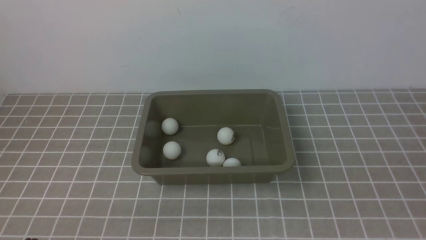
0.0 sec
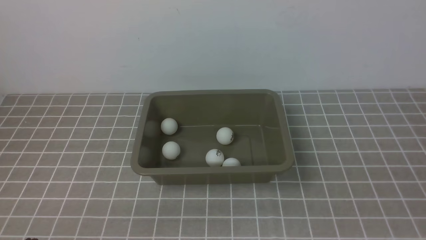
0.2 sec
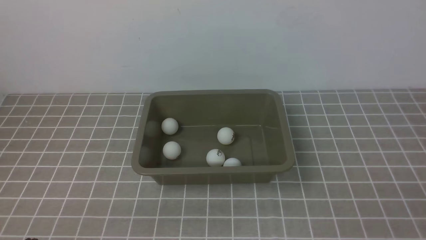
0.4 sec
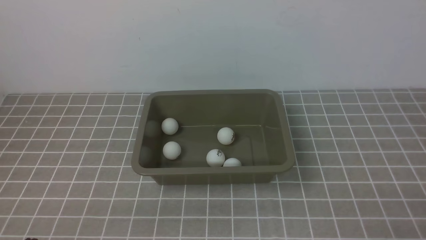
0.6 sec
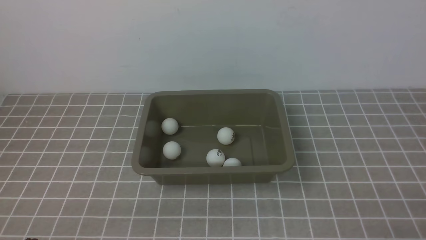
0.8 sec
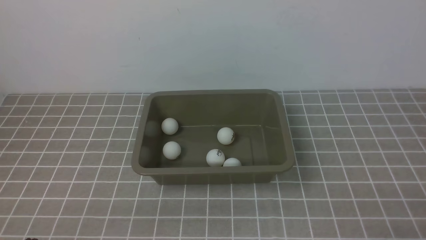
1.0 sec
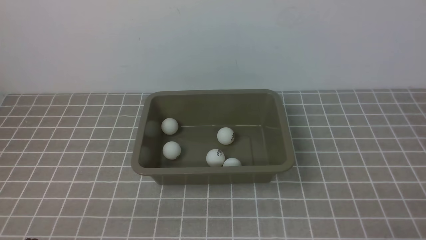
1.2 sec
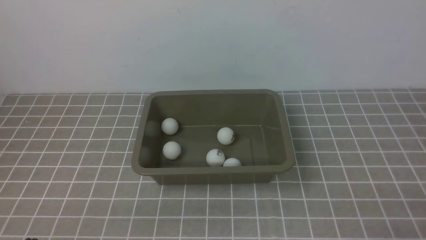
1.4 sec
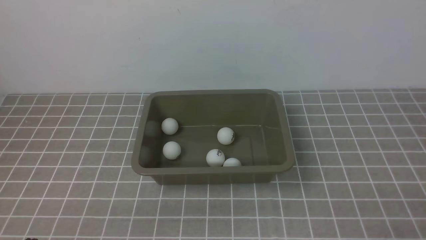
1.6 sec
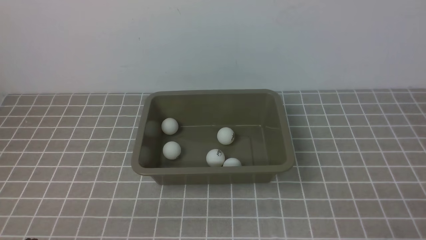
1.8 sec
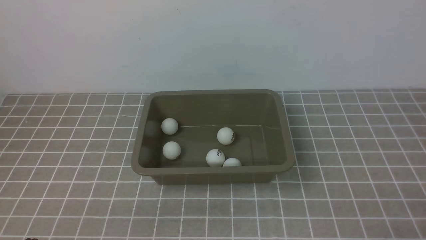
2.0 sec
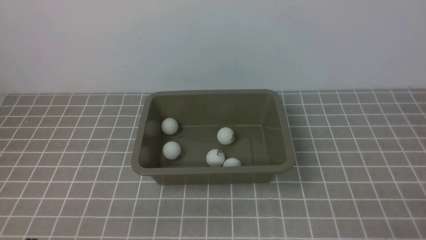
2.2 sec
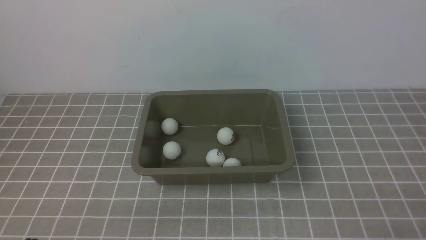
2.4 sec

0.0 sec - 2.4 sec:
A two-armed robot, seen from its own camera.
1.2 sec - 2.4 sec: Both grippers stay put.

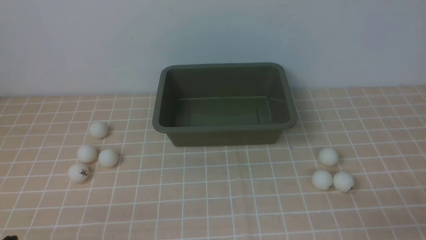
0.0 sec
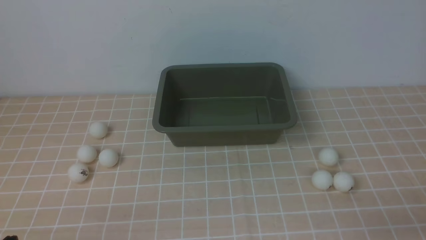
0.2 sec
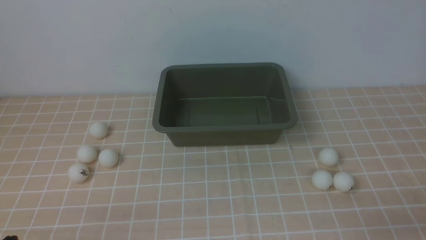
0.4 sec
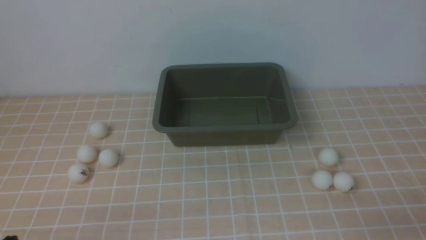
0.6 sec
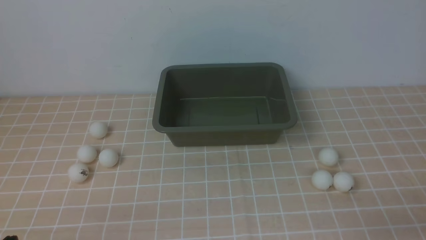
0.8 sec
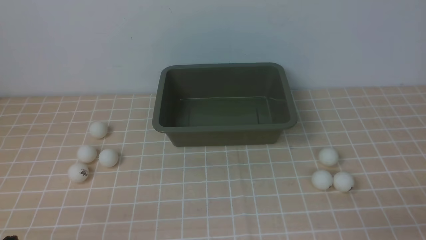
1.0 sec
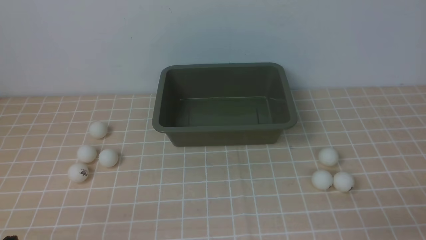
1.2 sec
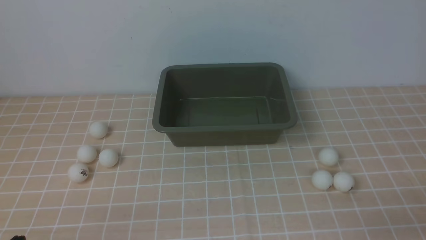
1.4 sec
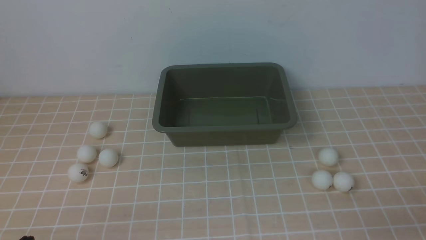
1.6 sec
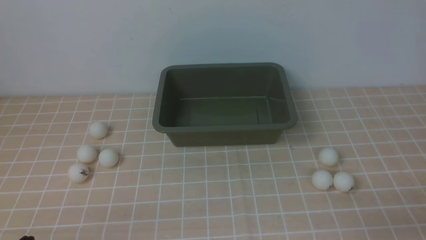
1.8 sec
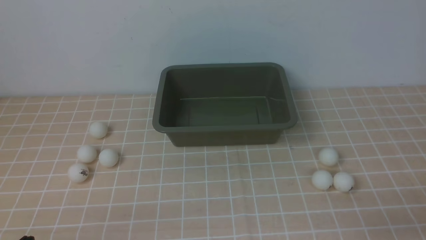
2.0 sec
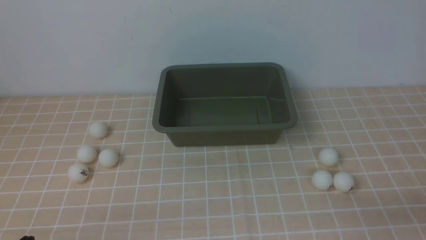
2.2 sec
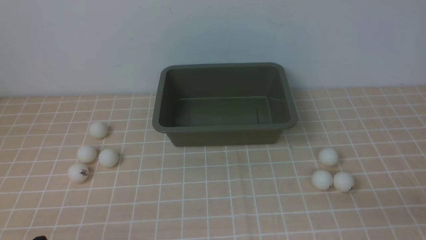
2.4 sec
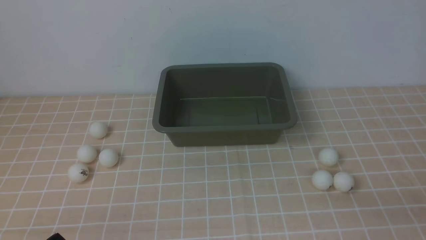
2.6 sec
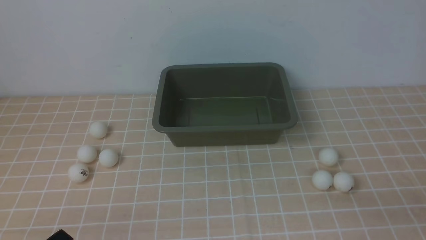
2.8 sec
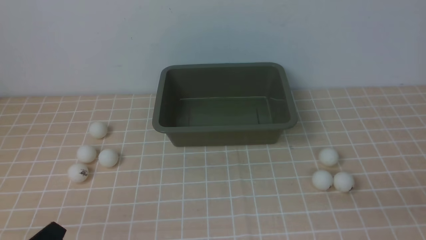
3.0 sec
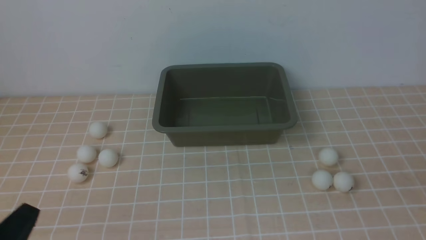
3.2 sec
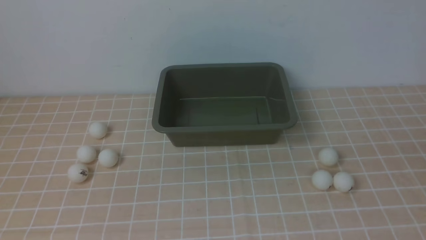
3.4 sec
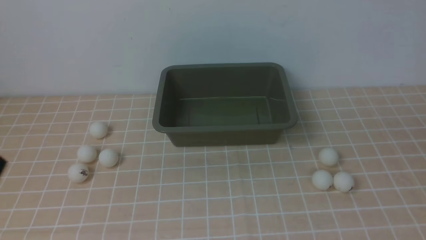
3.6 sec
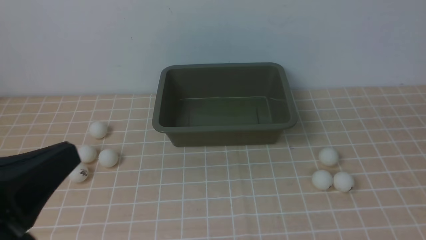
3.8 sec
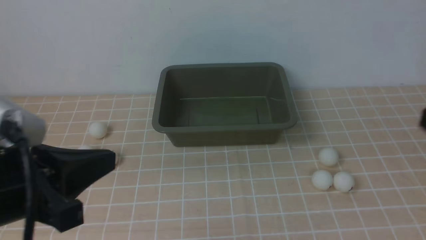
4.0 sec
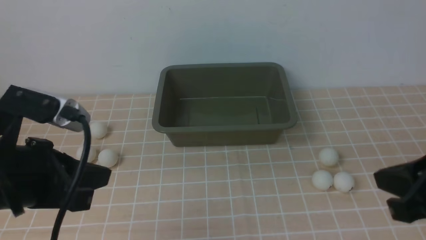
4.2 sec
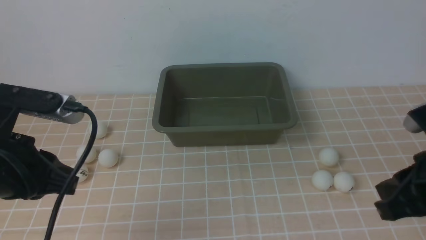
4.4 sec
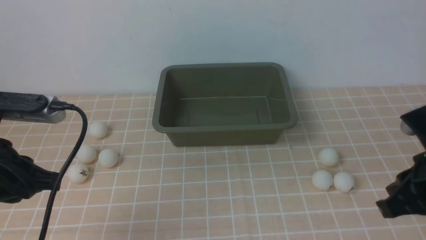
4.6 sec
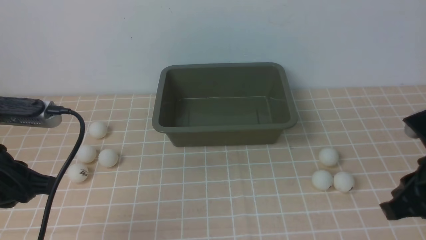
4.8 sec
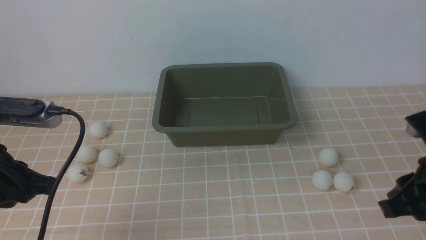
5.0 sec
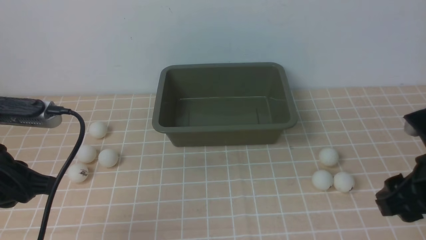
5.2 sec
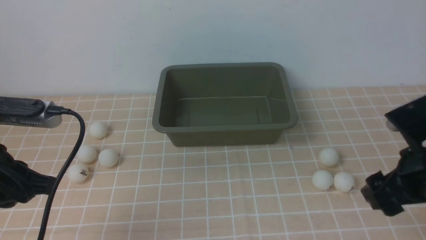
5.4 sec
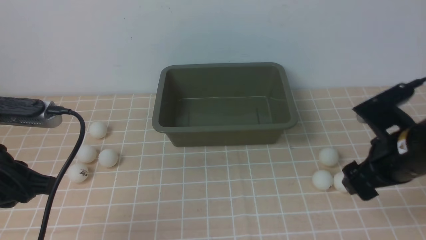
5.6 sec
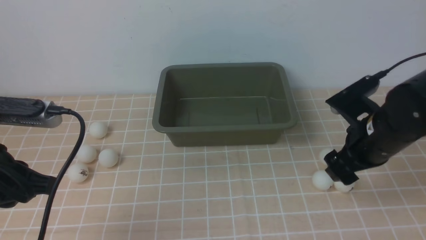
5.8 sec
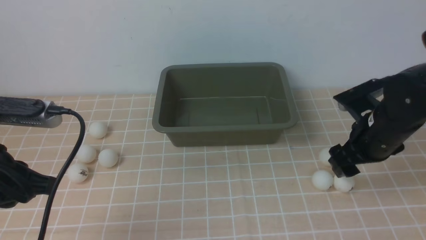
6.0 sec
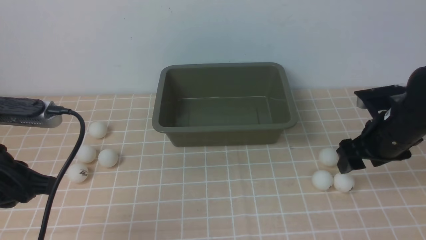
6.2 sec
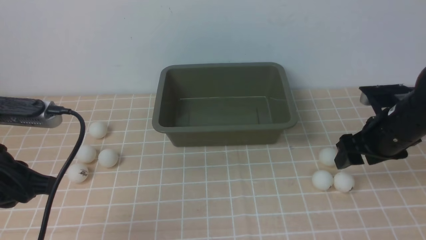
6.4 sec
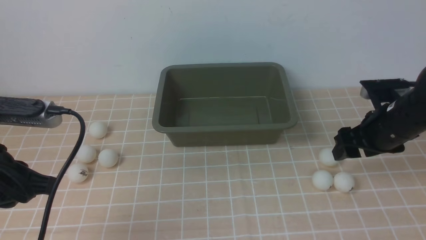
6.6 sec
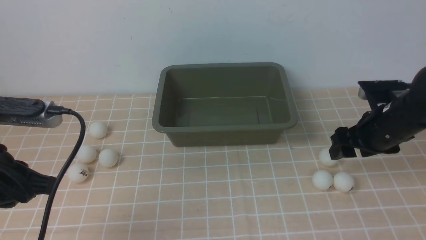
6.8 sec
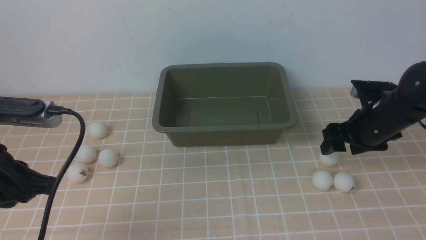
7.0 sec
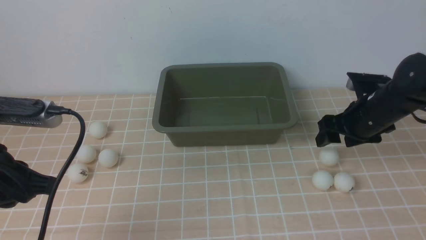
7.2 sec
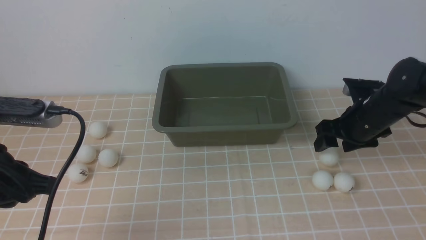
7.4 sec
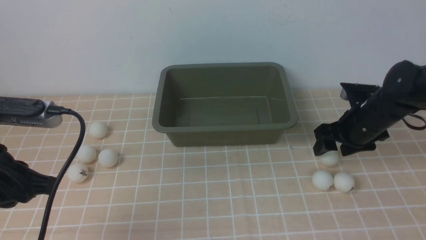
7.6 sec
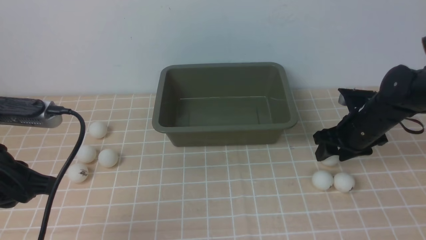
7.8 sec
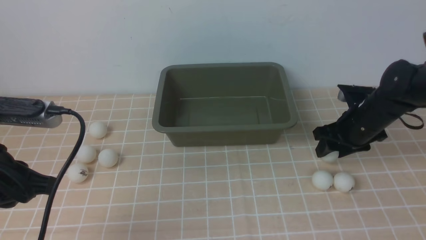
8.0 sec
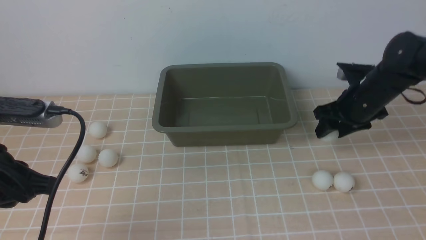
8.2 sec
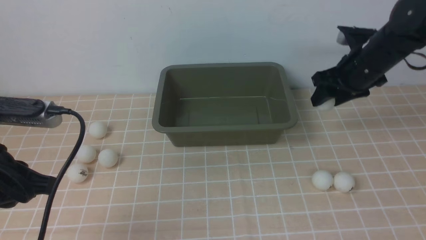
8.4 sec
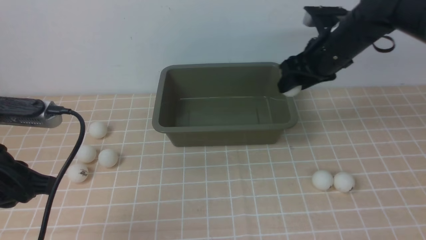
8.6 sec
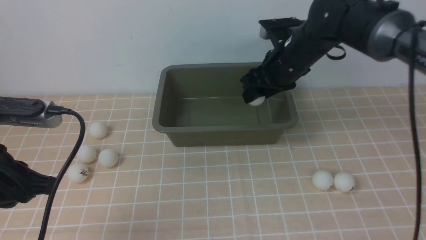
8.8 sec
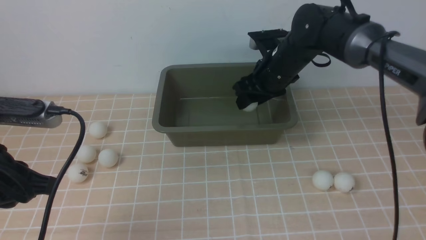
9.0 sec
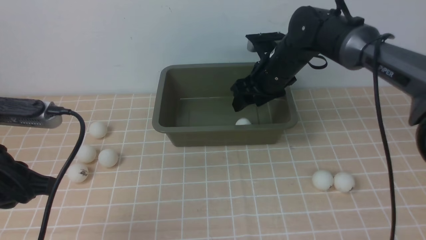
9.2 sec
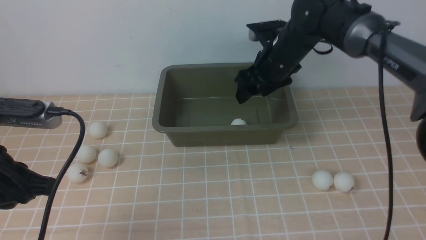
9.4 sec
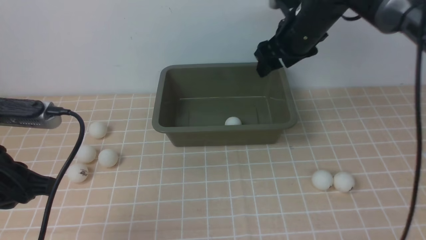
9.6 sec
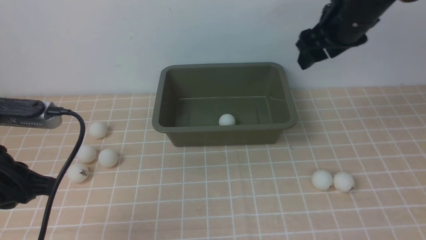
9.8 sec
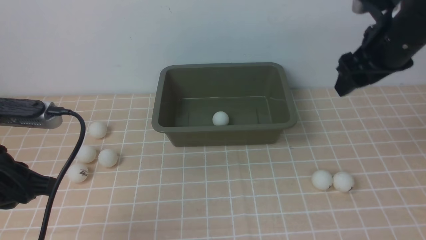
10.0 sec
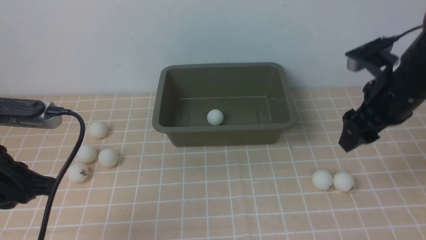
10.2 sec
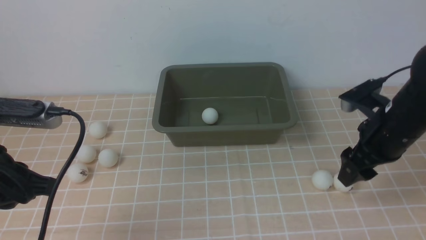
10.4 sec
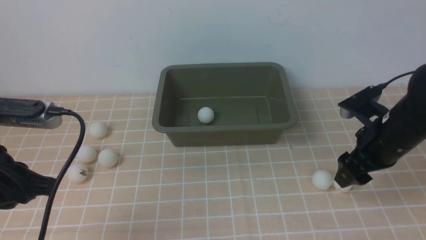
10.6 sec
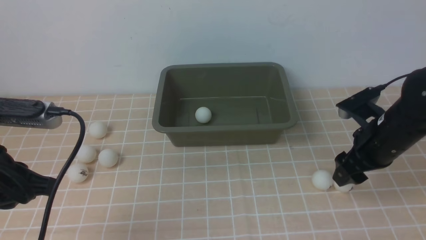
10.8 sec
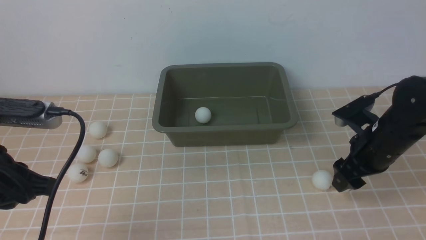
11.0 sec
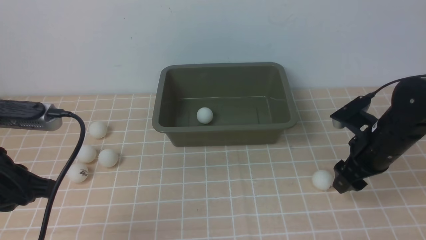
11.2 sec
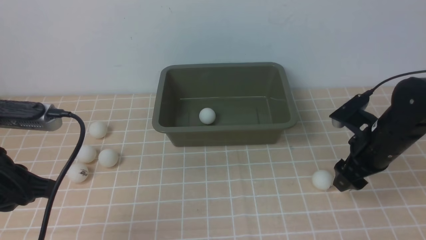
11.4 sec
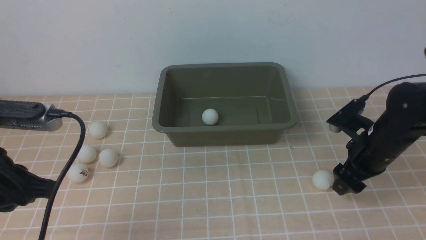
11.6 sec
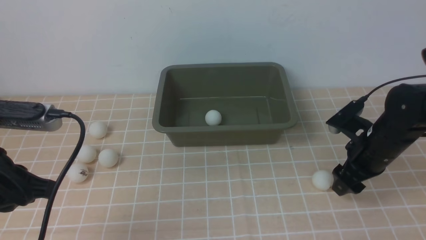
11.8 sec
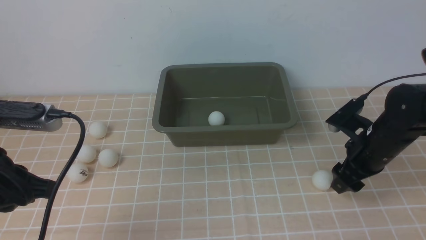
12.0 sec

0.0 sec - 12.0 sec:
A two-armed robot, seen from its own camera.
Step, 0.0 sec - 8.6 sec: use the right arm to clamp the table tennis ball closest to it.
Step, 8.8 sec - 9.4 sec: use the right arm to put the table tennis ball into the box.
3.0 sec - 4.4 sec: The left gripper is displaced forward and upward by some 15 cm. Meanwhile the right gripper heads forward, to the left and upward, covering about 15 cm.
4.4 sec - 6.0 sec: The right gripper shifts some 15 cm forward and downward, and opens.
6.0 sec - 7.6 sec: The right gripper travels forward and downward by roughly 10 cm.
7.6 sec - 9.0 sec: The right gripper heads to the left, upward and forward, covering about 15 cm.
9.0 sec - 10.4 sec: The right gripper is displaced to the right and backward by approximately 20 cm.
10.4 sec - 12.0 sec: The right gripper is displaced downward by approximately 10 cm.

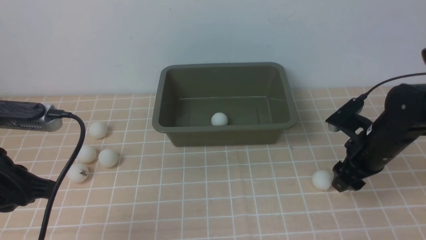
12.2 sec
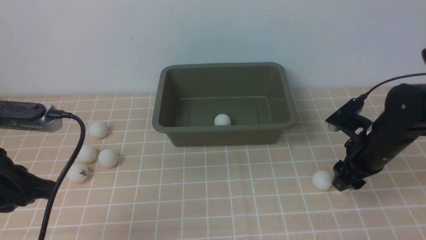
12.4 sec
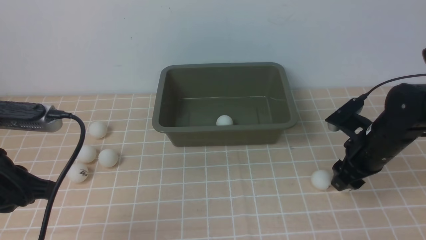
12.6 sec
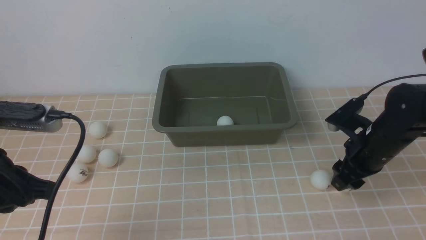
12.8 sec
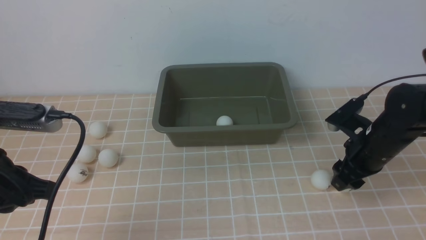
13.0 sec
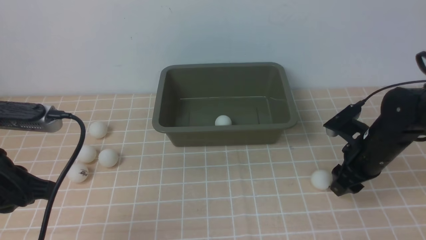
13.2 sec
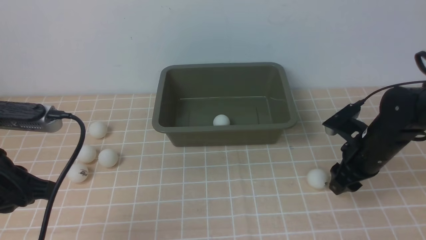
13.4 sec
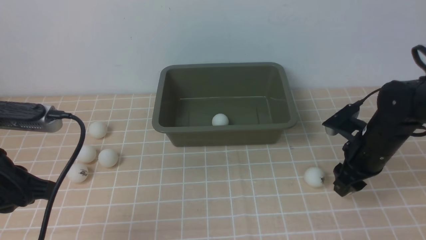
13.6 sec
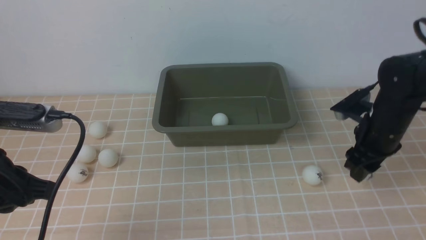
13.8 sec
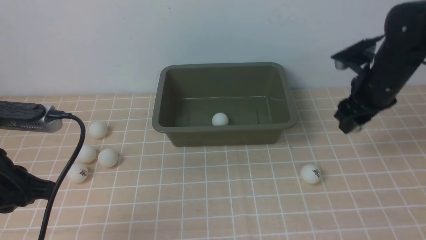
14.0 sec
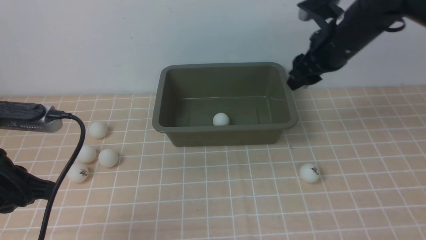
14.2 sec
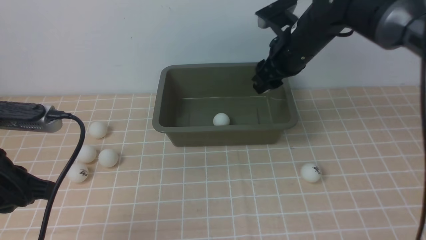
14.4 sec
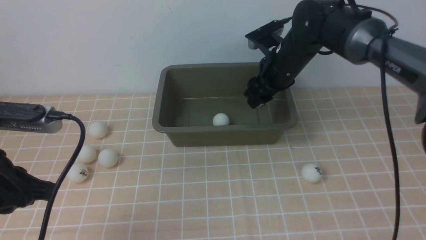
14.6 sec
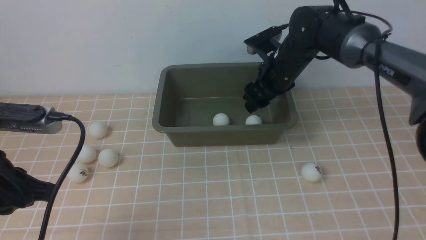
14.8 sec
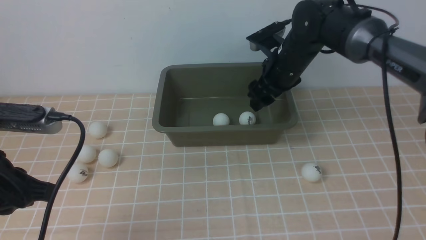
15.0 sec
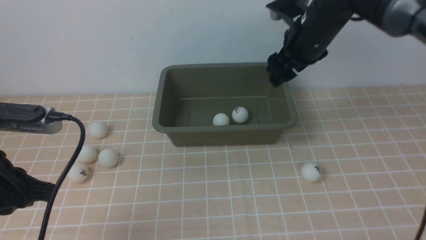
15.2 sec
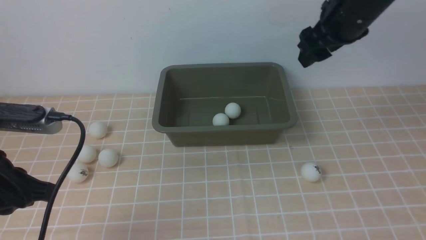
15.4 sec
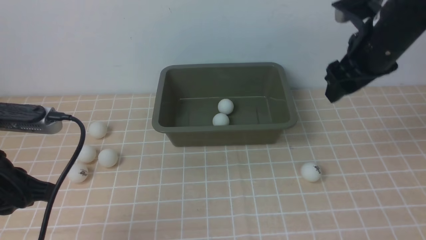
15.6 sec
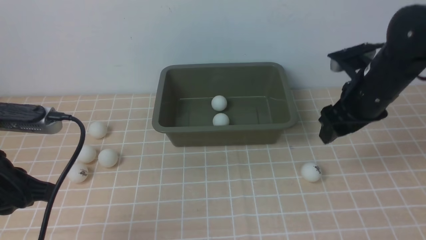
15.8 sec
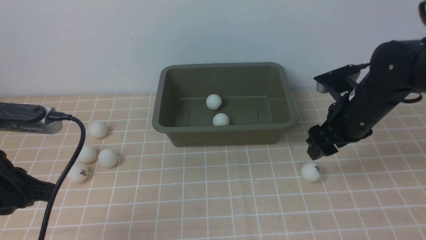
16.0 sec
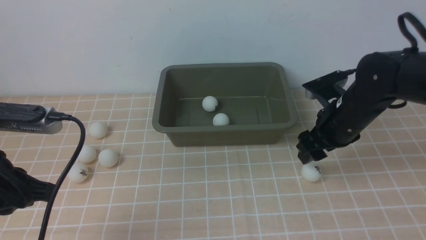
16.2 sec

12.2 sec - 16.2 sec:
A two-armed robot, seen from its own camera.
Step, 14.0 sec - 15.0 sec: use the right arm to put the table tennis ball into the box.
12.2 sec - 13.6 sec: There are only small adjustments of the grippers.
13.6 sec - 14.8 sec: The right gripper shifts approximately 20 cm to the left, forward and upward.
14.8 sec - 16.2 sec: The right gripper shifts some 15 cm backward and to the right, and goes upward and returns, roughly 10 cm each way.
